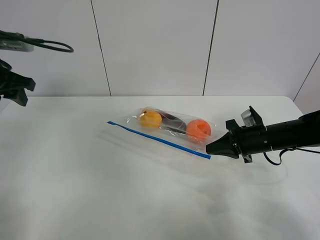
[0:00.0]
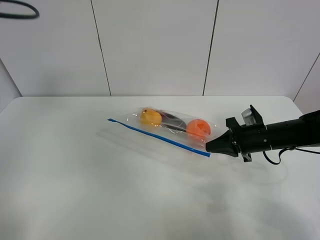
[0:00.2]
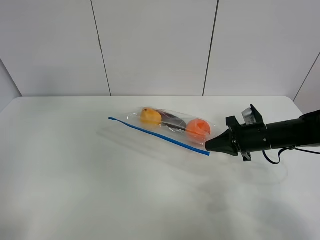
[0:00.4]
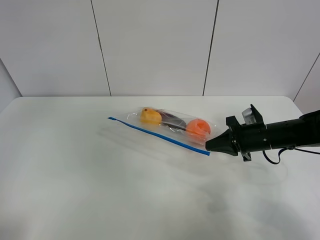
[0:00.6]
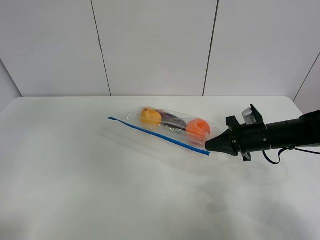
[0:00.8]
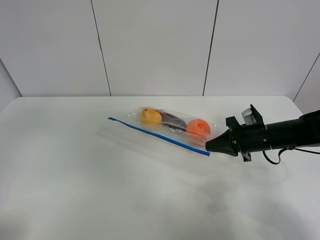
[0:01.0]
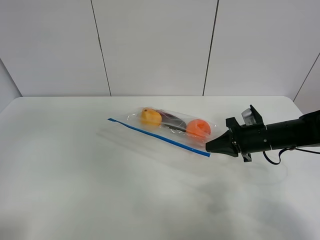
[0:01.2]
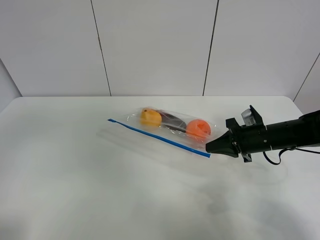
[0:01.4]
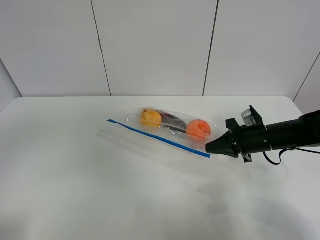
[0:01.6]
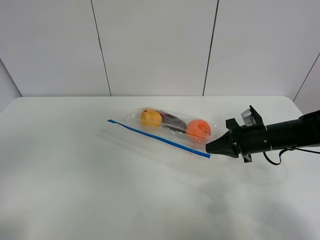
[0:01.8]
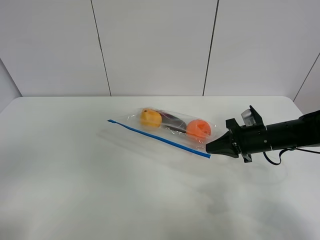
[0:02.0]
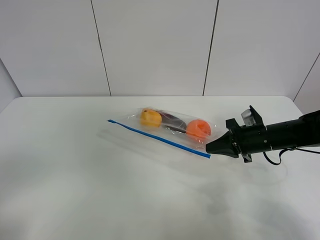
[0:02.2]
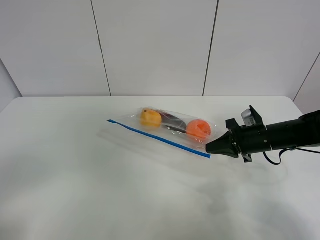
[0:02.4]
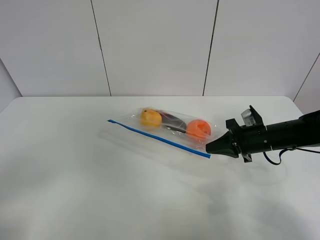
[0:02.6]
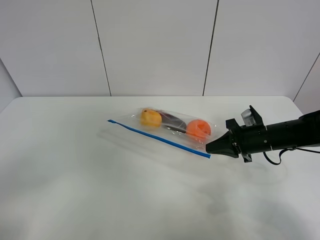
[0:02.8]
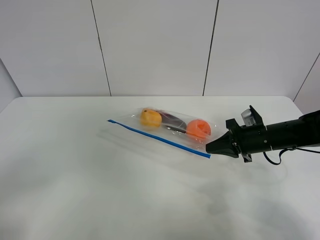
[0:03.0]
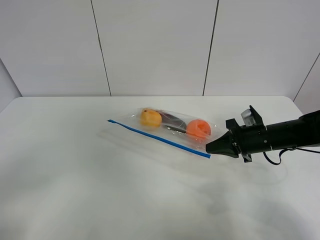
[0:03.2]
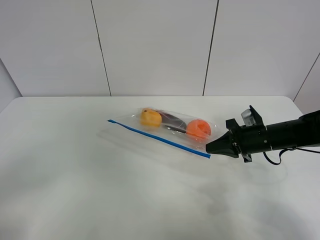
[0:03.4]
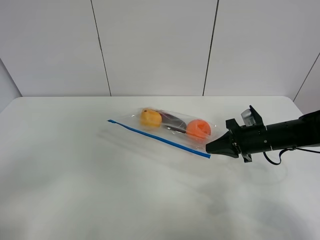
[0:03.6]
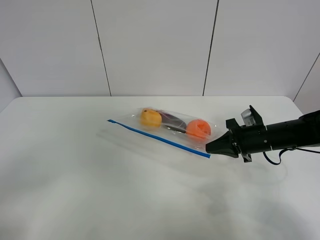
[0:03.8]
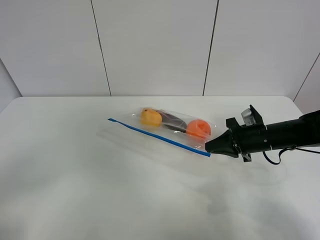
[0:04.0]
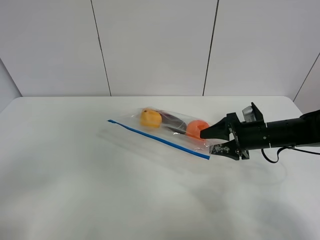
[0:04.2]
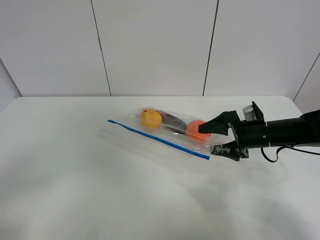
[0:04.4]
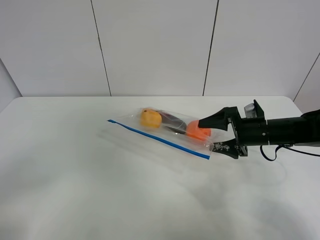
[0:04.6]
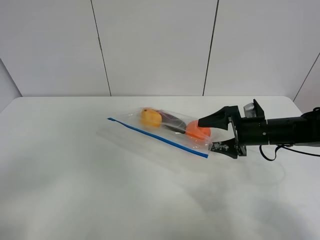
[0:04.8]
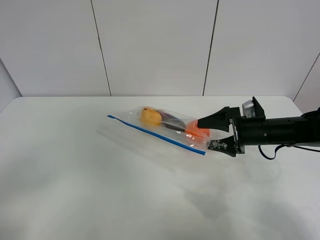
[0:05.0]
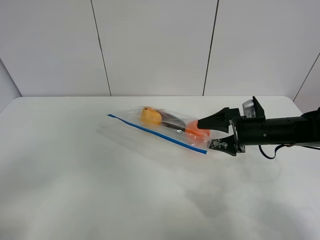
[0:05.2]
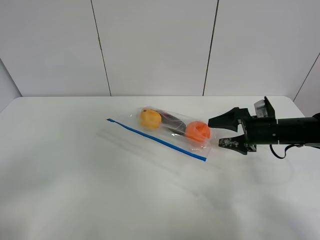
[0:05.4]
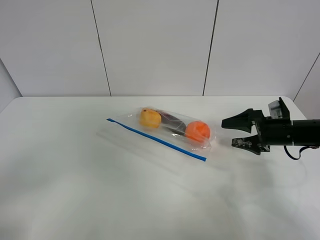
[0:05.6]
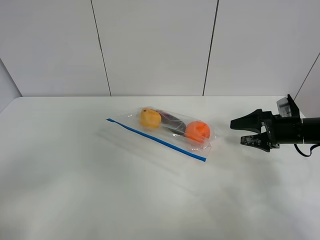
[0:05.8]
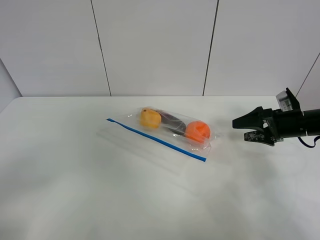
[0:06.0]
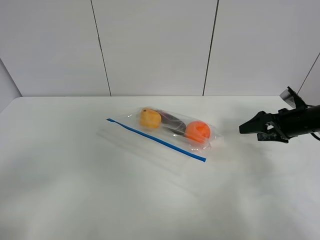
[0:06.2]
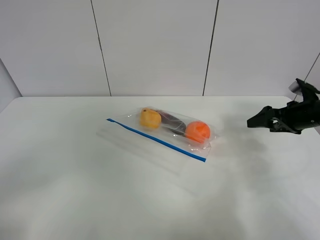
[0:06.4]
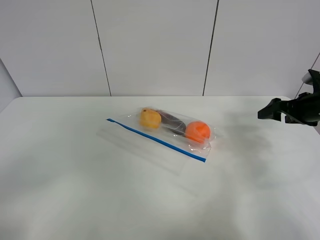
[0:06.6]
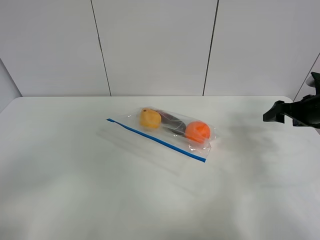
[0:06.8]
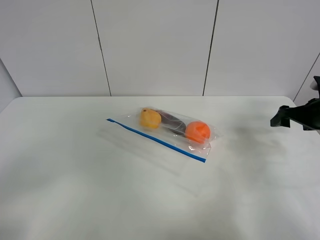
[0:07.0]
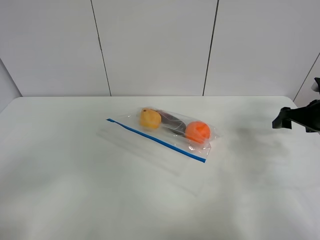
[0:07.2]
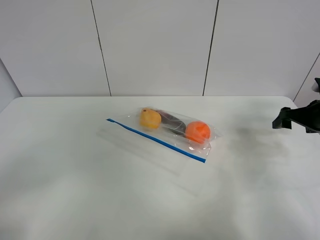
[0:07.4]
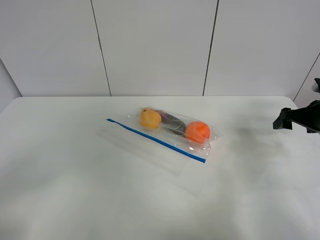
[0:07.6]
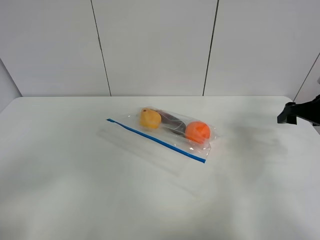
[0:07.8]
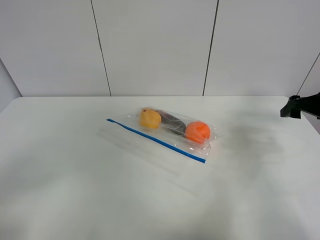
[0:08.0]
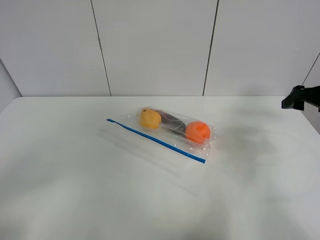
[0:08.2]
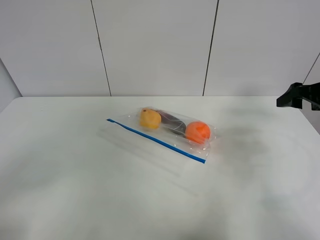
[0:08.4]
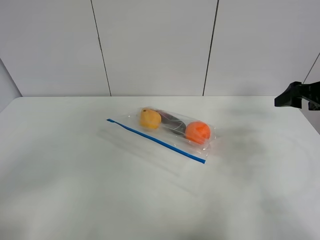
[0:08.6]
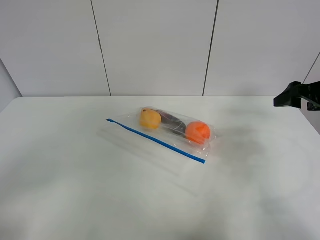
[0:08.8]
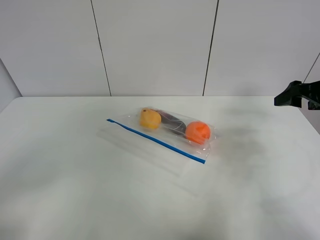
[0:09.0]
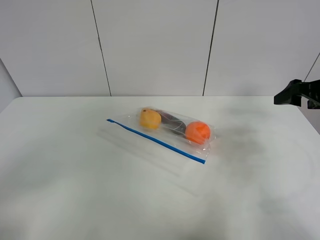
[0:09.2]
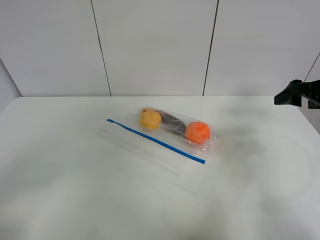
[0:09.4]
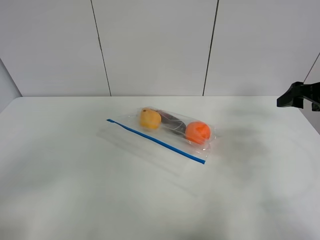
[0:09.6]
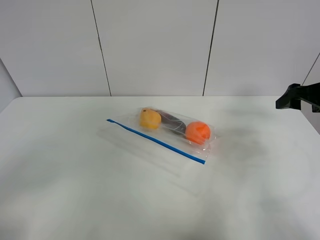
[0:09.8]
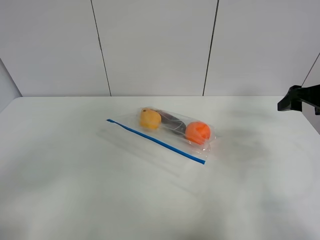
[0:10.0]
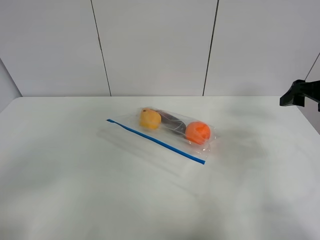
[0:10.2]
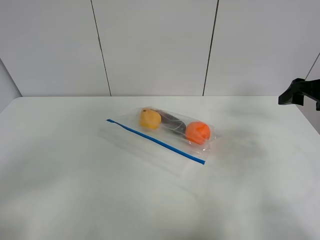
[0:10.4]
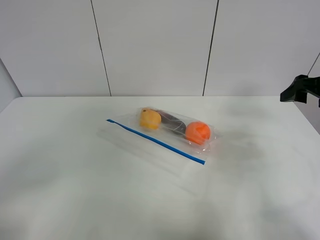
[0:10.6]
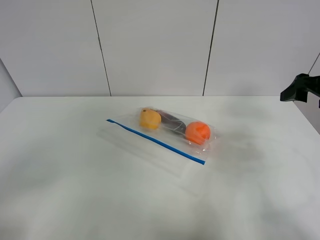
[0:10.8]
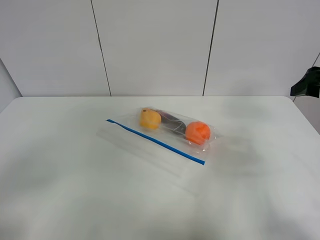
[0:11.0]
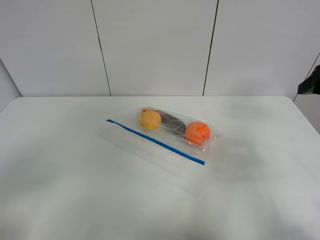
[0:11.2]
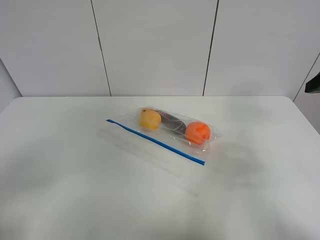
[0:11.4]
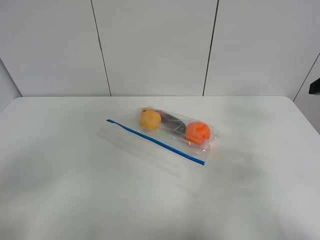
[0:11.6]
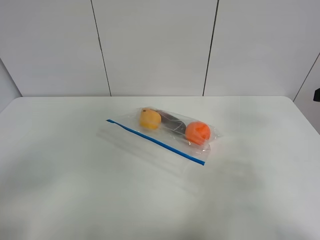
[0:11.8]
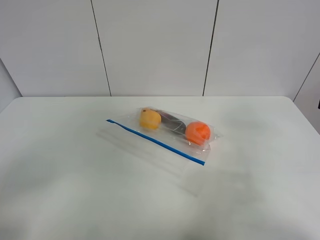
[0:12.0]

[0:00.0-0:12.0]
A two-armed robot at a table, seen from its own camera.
0:00.0 to 0:01.6: The left gripper goes some 35 cm backward.
0:01.6 to 0:03.0: The left gripper is displaced downward by approximately 15 cm.
0:03.0 to 0:04.4: The right gripper opens its fingers.
0:04.4 to 0:06.0: The right gripper moves to the right, approximately 10 cm.
0:06.0 to 0:07.6: The right gripper travels to the right by approximately 5 cm.
0:07.6 to 0:09.0: The right gripper travels upward by some 10 cm.
0:10.4 to 0:12.0: The right gripper shifts about 15 cm backward and upward.

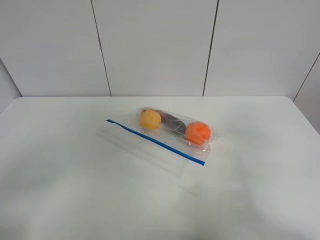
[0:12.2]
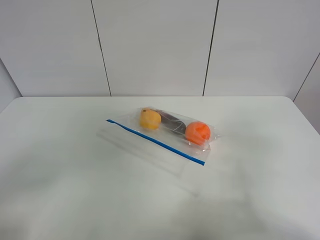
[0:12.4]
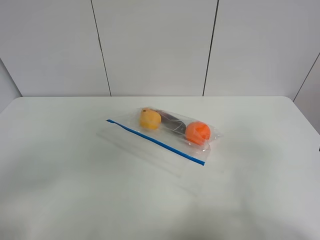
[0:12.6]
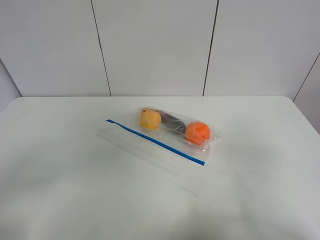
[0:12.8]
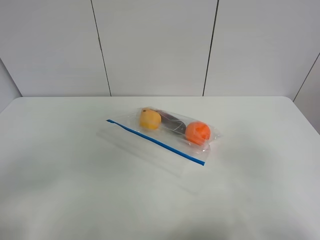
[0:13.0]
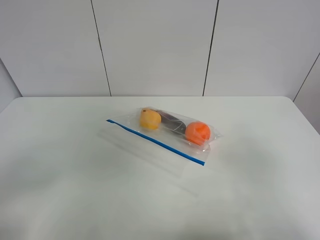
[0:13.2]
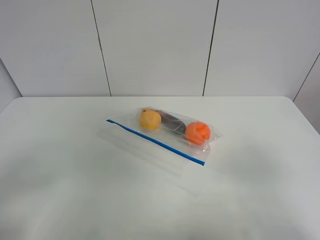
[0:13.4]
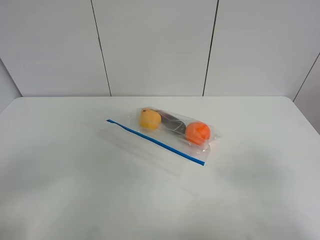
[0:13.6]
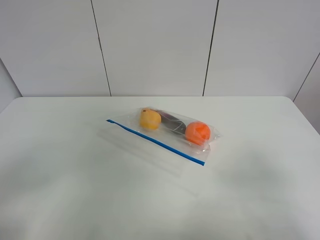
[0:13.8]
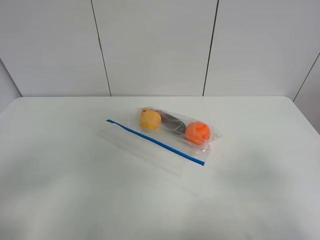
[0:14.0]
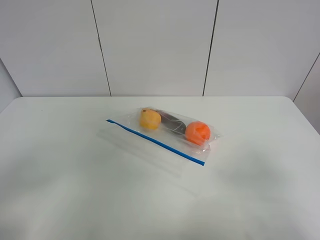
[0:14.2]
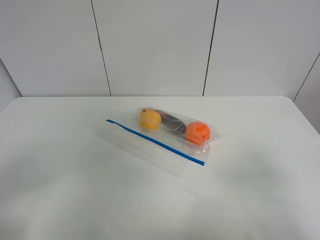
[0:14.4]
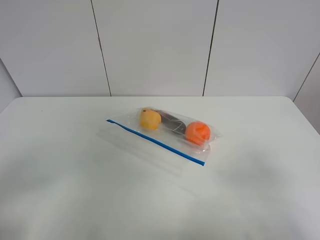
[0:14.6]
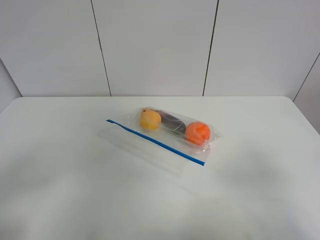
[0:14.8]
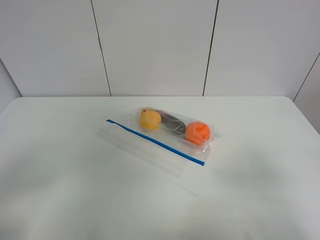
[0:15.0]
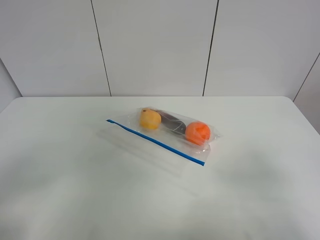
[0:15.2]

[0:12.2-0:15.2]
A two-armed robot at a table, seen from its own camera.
0:12.2 to 0:13.8: The right gripper travels backward by roughly 10 cm.
0:13.8 to 0:15.2: Both grippers stay put.
